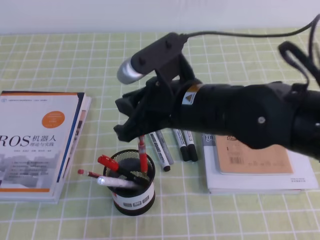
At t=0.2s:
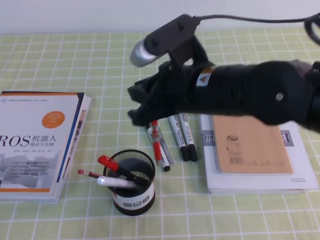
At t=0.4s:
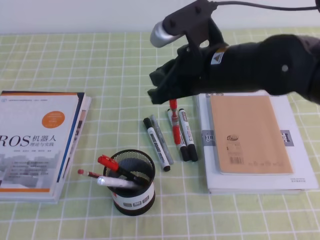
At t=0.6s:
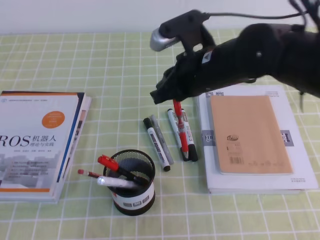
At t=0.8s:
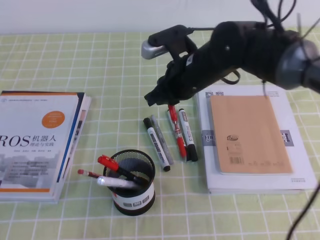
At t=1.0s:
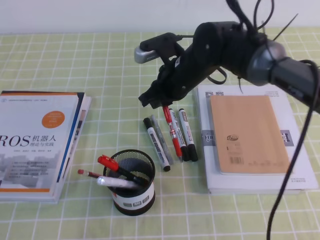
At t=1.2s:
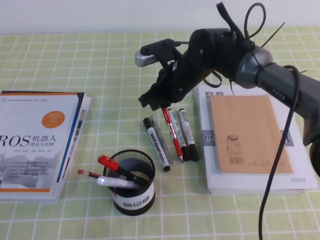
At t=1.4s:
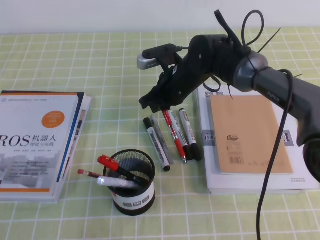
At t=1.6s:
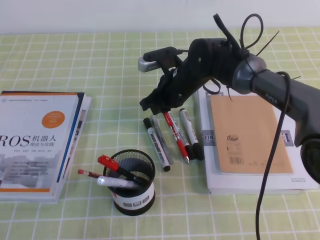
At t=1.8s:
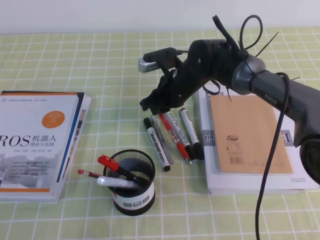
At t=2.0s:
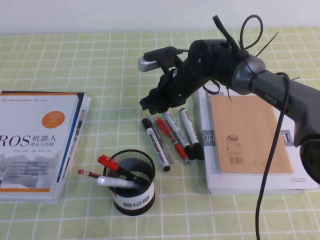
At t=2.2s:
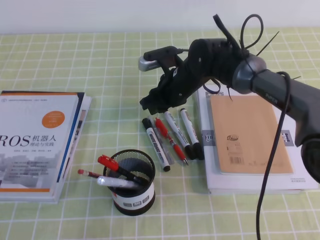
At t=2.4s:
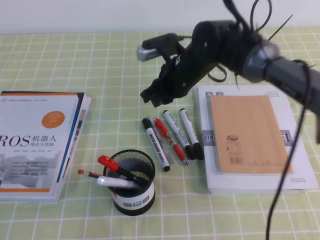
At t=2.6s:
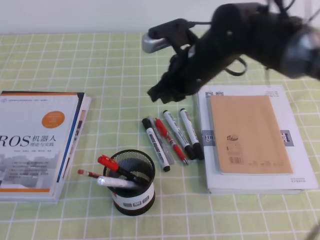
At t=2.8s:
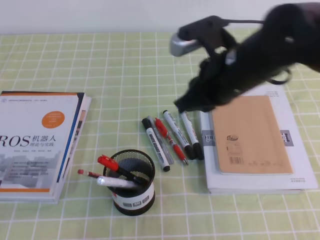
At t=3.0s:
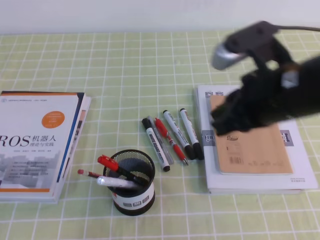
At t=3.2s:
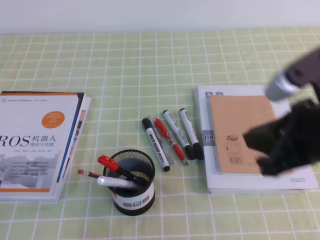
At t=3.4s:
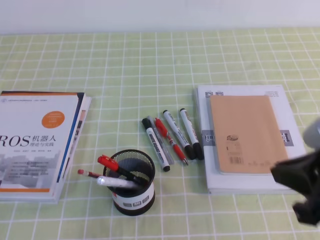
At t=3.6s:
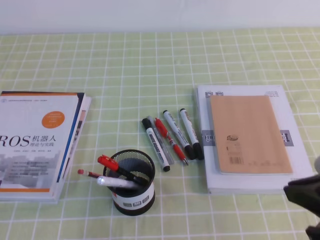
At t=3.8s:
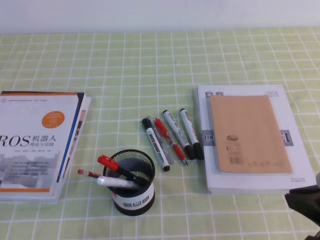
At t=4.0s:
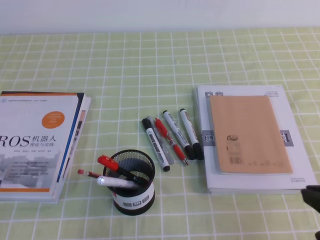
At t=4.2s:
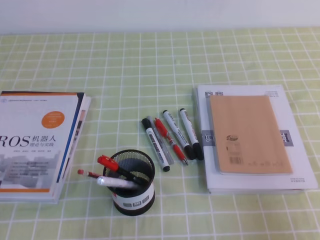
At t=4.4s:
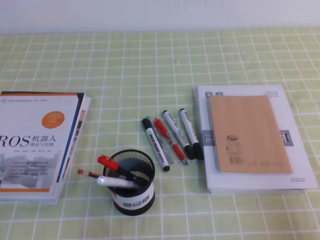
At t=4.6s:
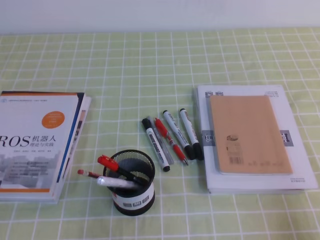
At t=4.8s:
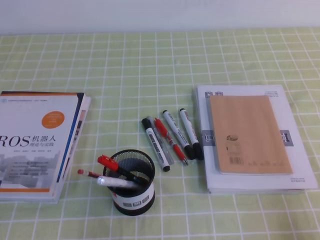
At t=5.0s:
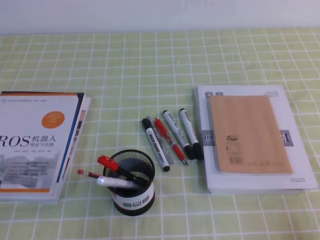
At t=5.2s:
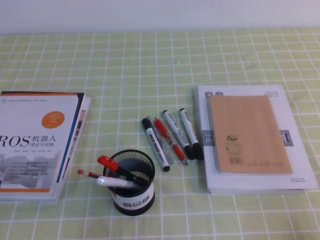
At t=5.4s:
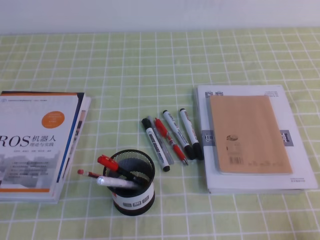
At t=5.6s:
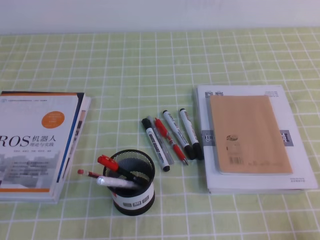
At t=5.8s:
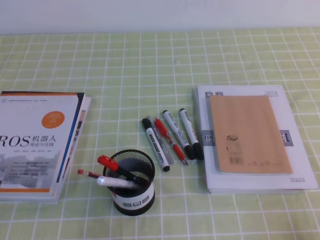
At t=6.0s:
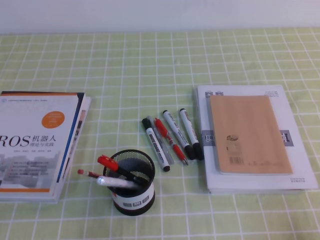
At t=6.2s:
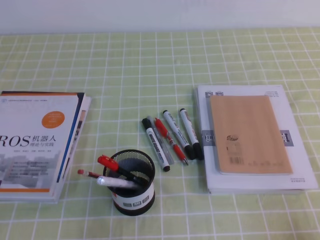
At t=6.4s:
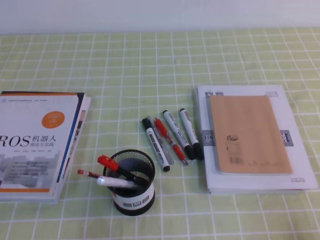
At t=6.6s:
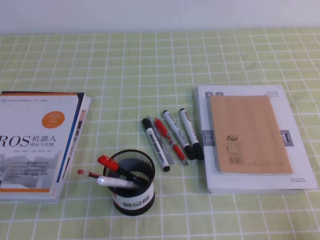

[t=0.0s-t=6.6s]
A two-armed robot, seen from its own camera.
Step, t=0.0s to t=6.6s: Pick up the pen from the pen holder.
t=0.0s to t=1.6s: The right gripper goes some 20 cm forward and downward.
t=1.6s to t=3.2s: The right gripper heads backward, to the right and upward, covering about 30 cm.
t=3.2s to t=5.0s: The right gripper travels downward, backward and to the right by roughly 25 cm.
